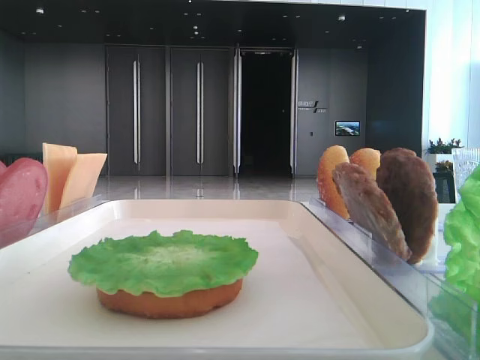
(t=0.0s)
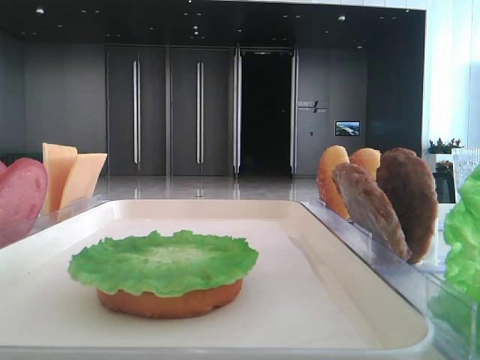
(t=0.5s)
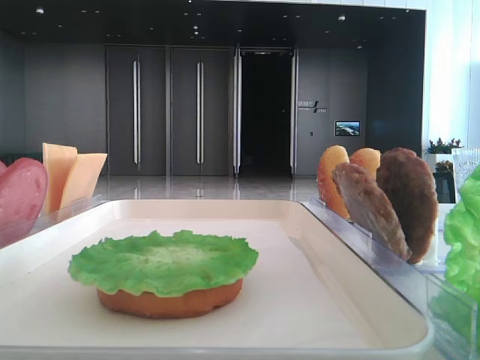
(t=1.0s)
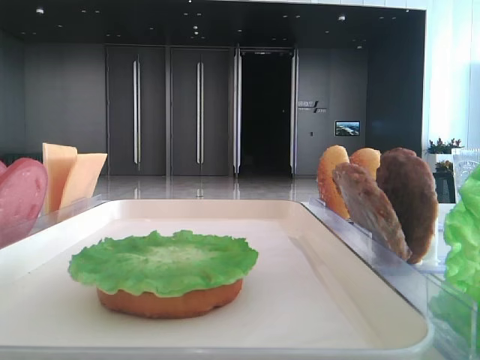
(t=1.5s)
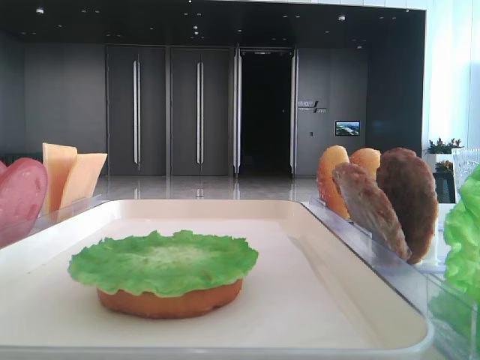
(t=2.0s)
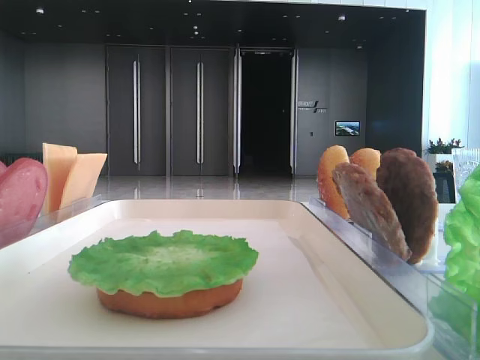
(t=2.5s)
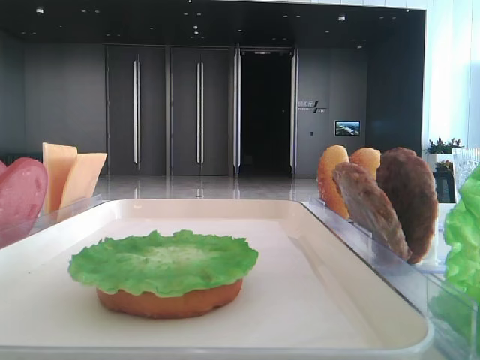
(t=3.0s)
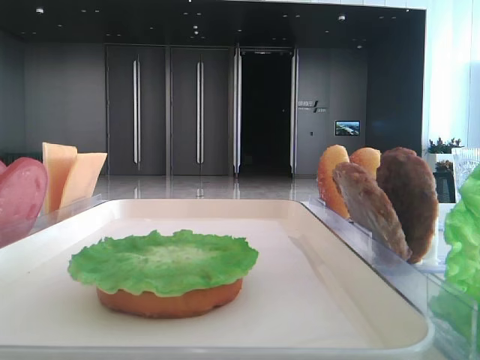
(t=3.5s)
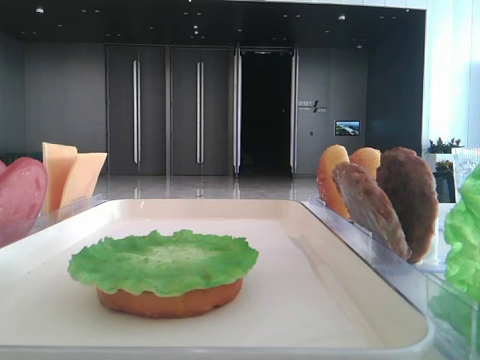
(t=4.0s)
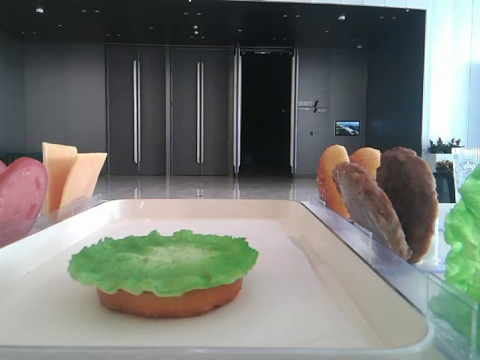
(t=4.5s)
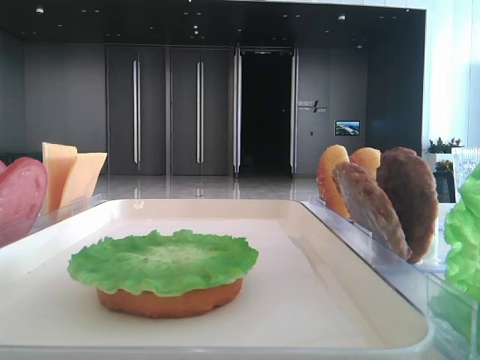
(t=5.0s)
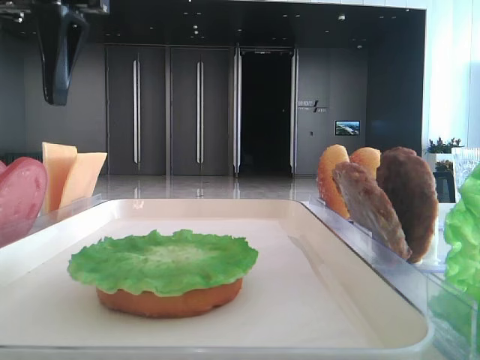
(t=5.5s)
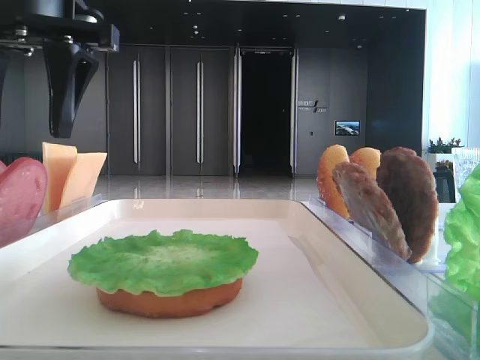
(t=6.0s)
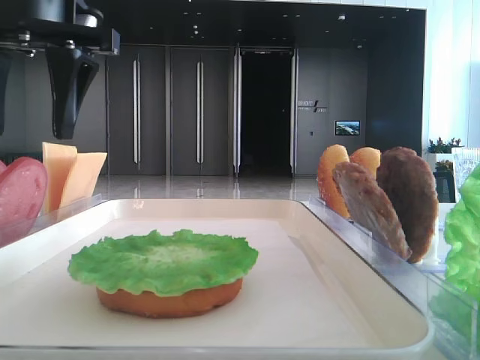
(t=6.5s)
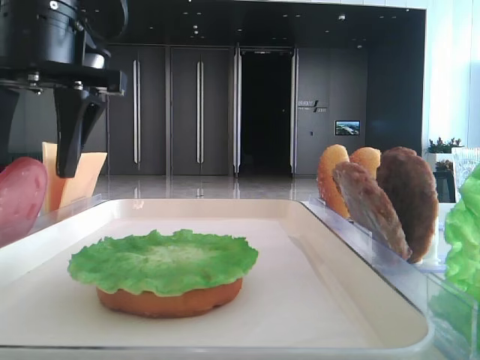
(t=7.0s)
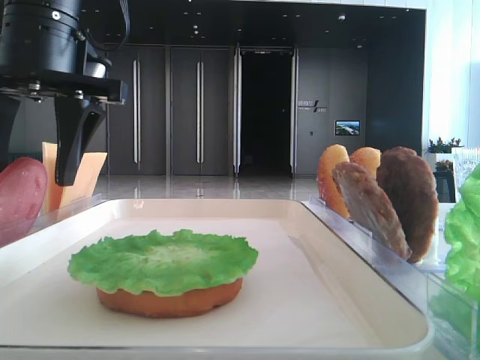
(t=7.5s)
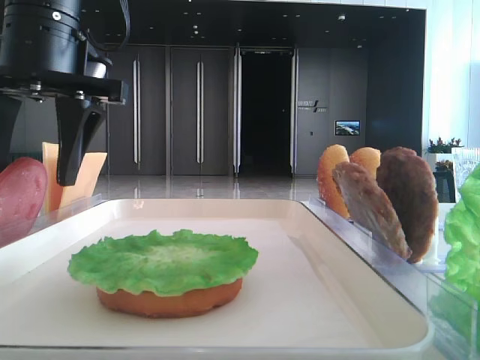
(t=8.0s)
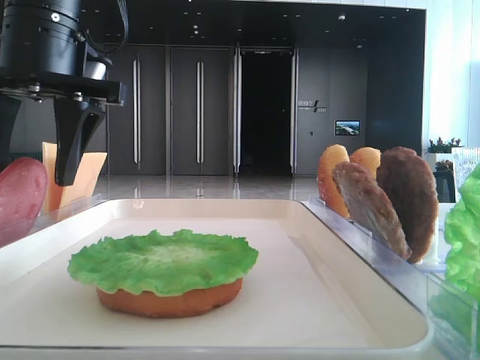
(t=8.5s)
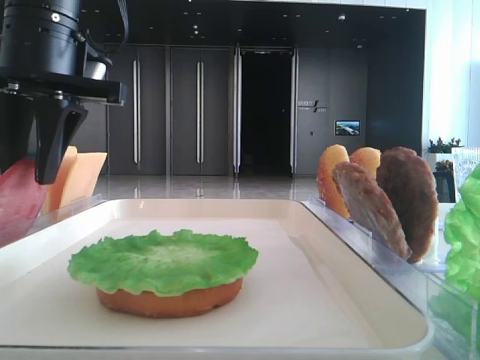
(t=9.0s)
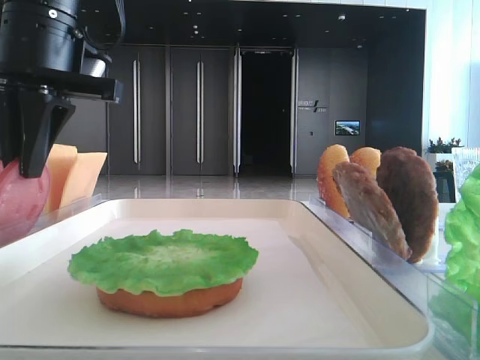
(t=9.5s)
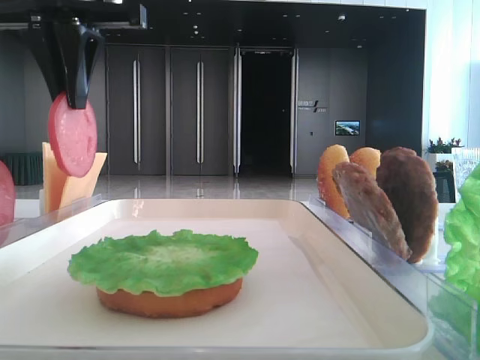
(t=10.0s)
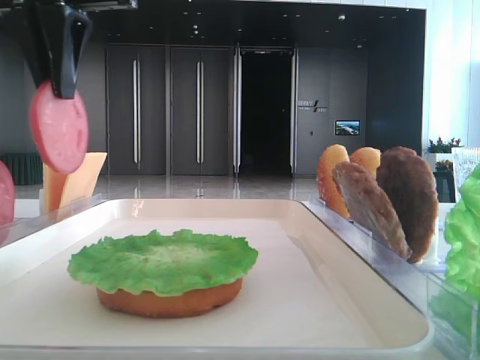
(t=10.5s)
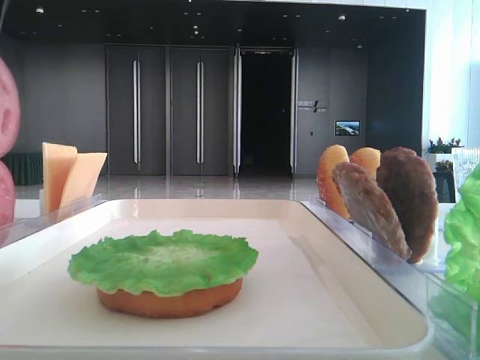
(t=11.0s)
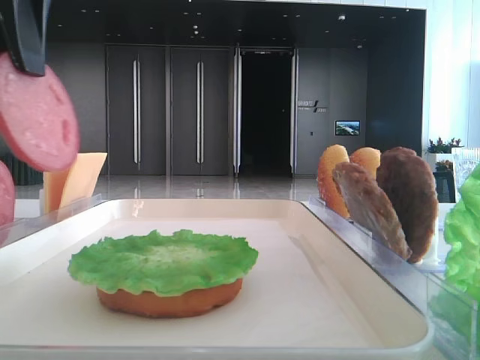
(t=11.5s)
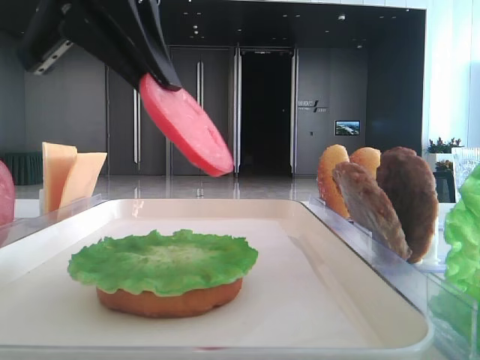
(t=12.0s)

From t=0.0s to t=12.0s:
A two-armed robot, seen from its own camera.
Step, from t=0.0s to t=9.0s: Pick up the tomato slice with the left hand.
From t=4.0s to t=6.0s: The left gripper shifts roughly 20 cm to the right and downward.
From t=6.0s to t=8.0s: There are only small adjustments of the grippers.
From t=8.0s to t=10.0s: The left gripper is displaced upward by some 5 cm, and closes.
From t=10.0s to t=12.0s: The left gripper shifts approximately 5 cm backward.

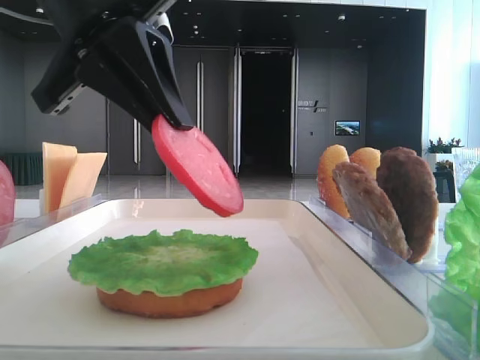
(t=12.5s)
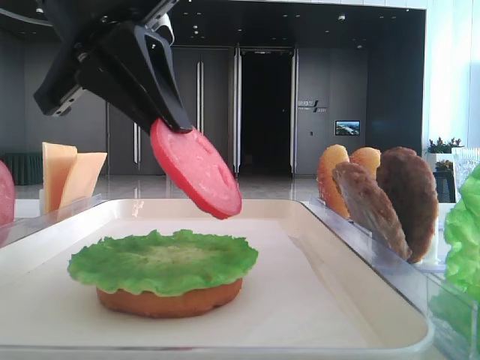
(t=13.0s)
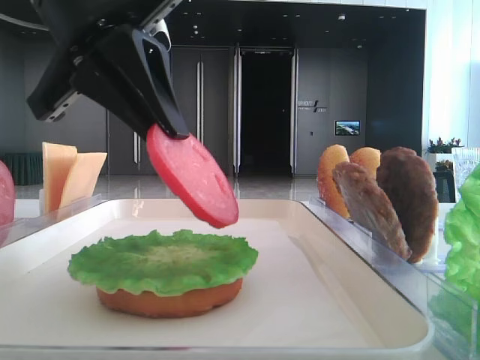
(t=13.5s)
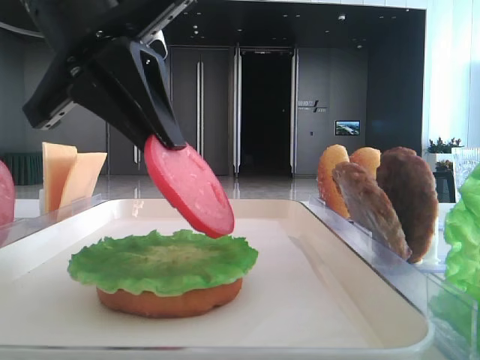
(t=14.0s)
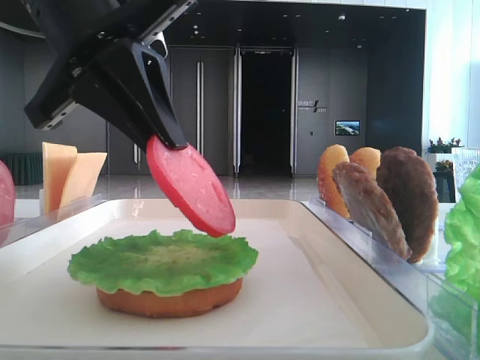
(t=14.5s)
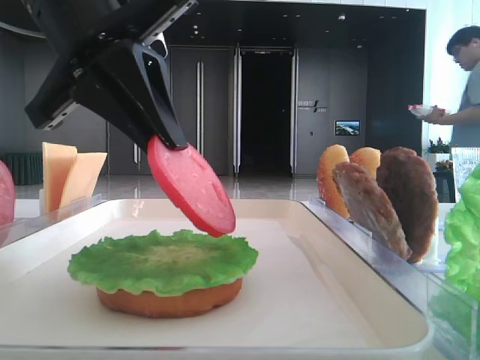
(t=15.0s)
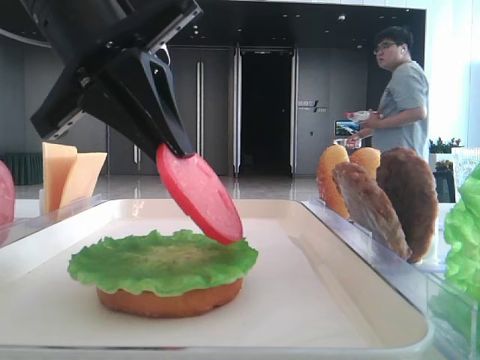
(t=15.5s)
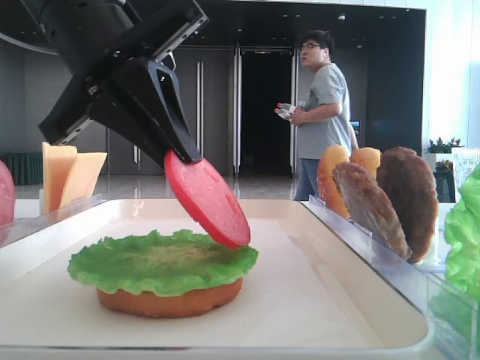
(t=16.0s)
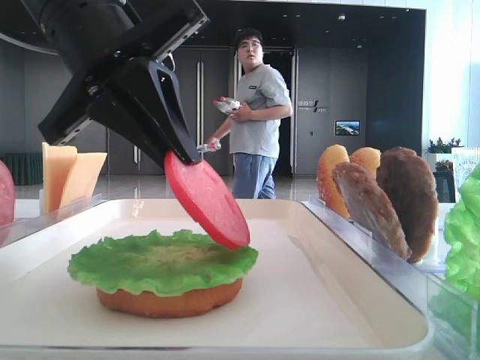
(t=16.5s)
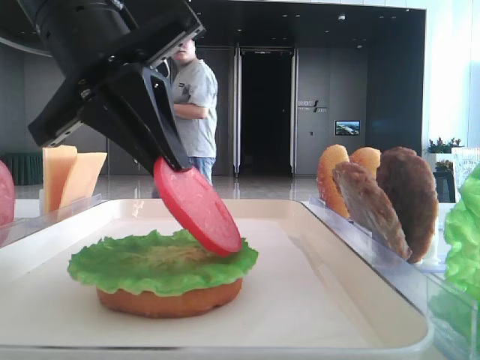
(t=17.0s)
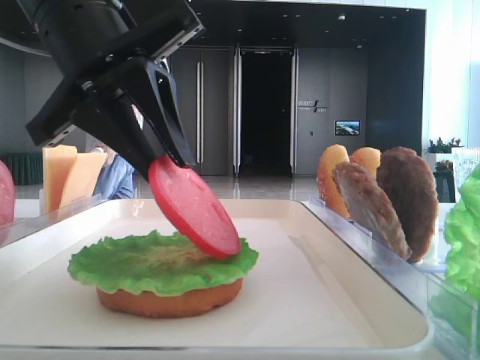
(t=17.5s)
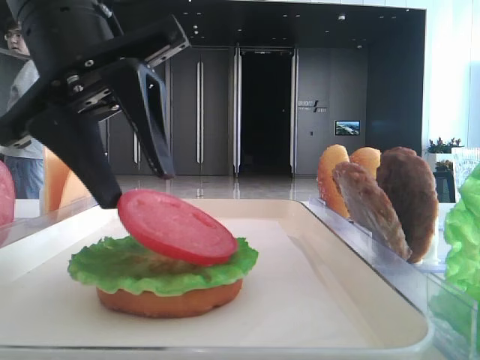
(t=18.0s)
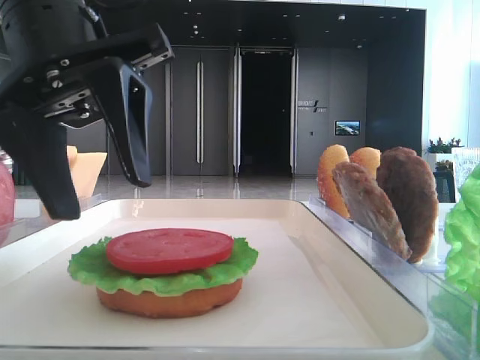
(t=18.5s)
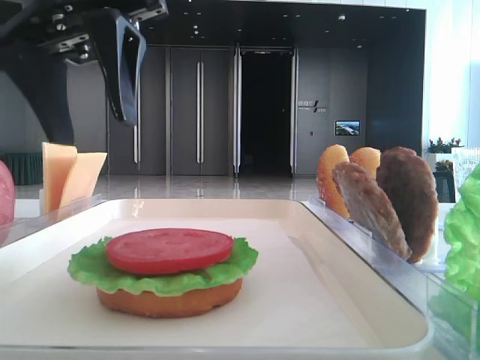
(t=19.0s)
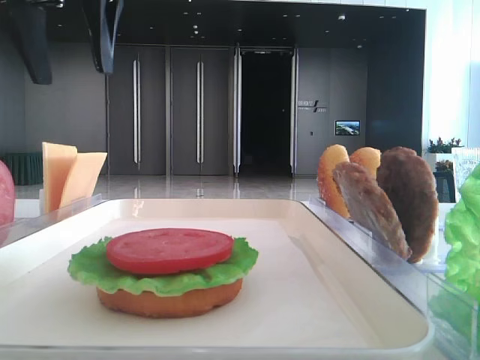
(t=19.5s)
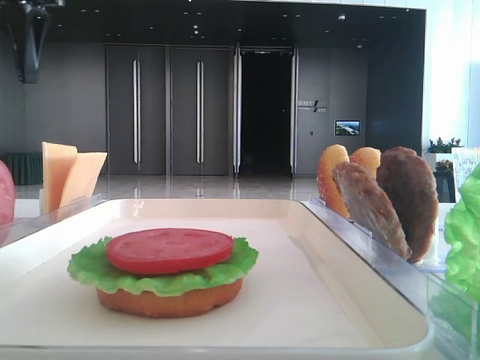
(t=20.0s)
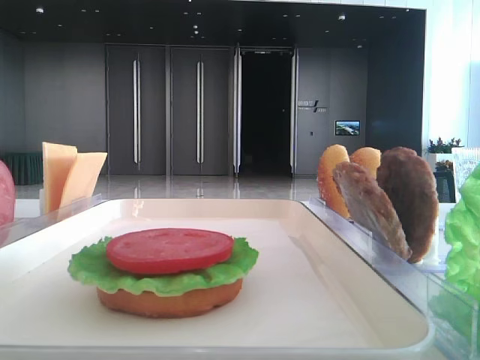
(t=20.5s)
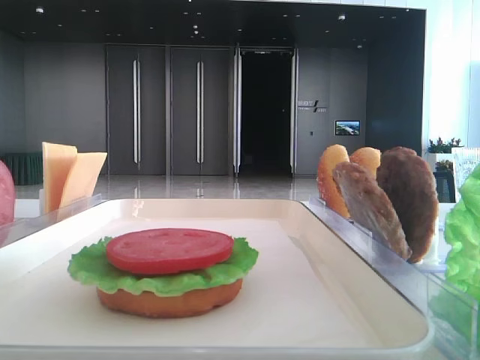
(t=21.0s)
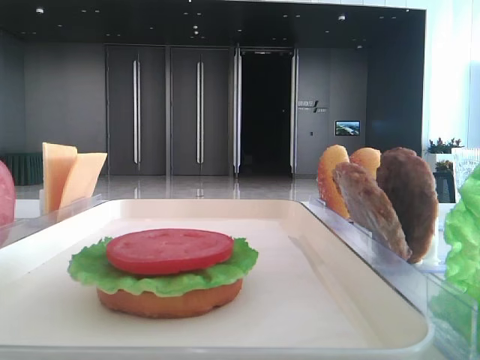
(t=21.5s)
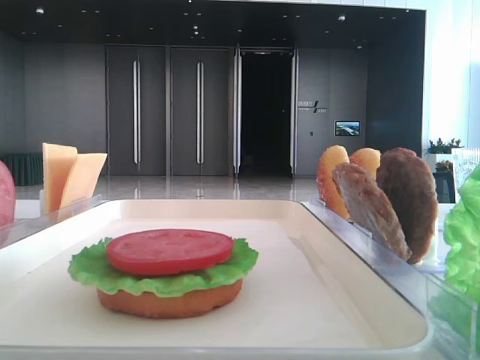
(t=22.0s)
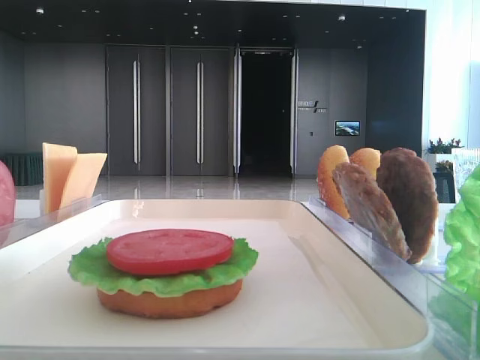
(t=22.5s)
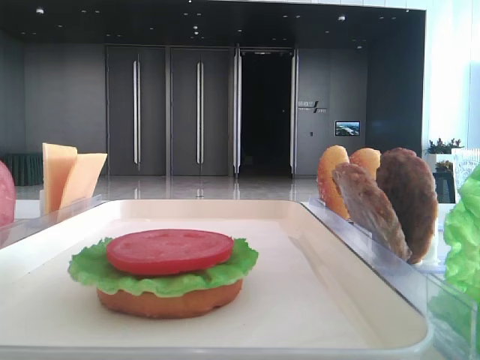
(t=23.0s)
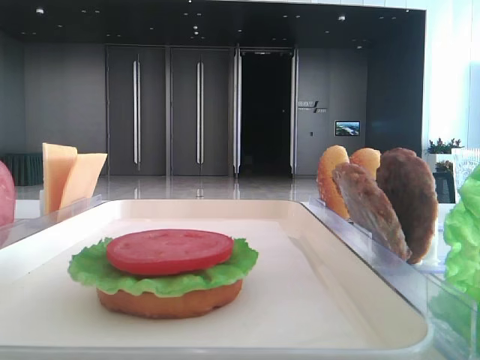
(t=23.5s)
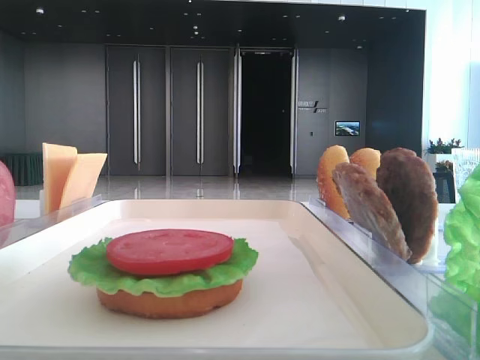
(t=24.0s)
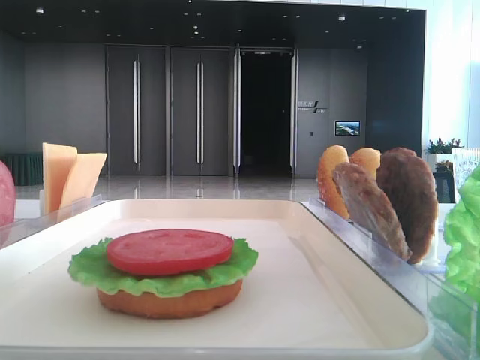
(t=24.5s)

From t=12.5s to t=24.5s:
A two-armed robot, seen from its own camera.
Step, from t=12.5s to t=18.0s: Place the tomato slice on the lettuce leaf with the left hand.
From t=12.5s to t=14.5s: Neither gripper changes place.
From t=14.5s to t=16.5s: The two grippers keep their place.
From t=16.5s to t=18.5s: The left gripper opens its fingers.
From t=18.5s to t=20.5s: The left gripper heads to the left, upward and forward, covering roughly 25 cm.

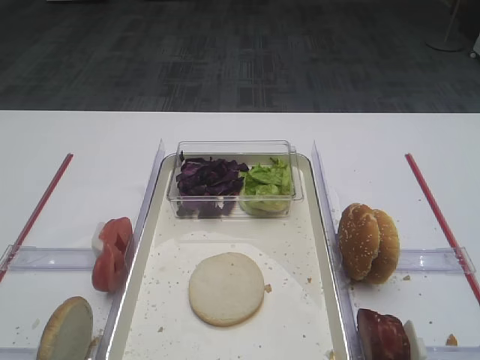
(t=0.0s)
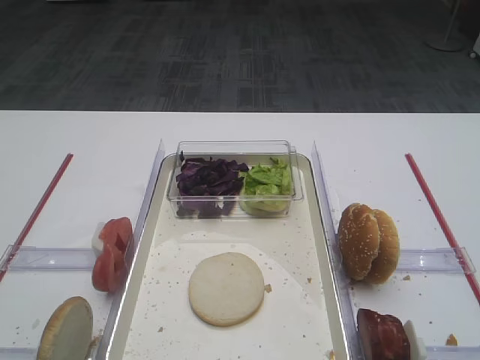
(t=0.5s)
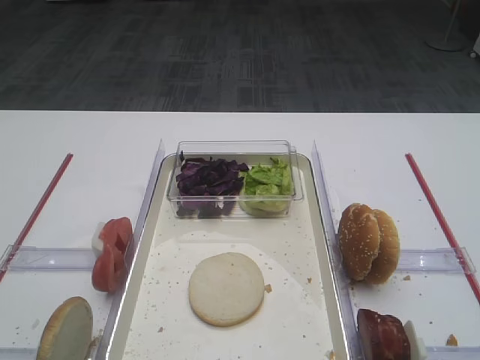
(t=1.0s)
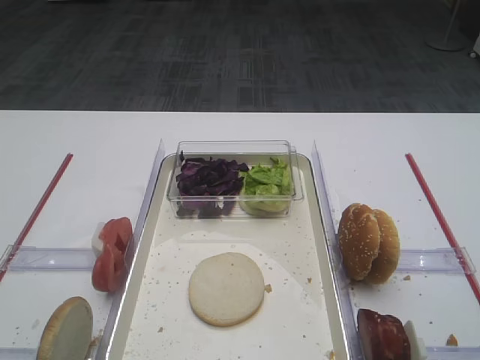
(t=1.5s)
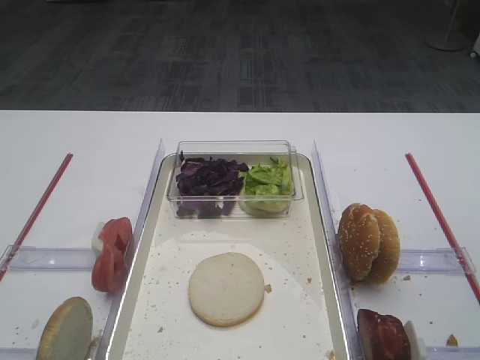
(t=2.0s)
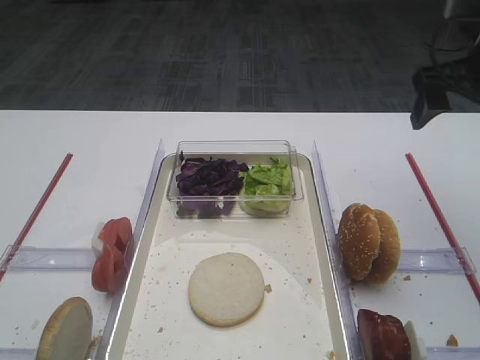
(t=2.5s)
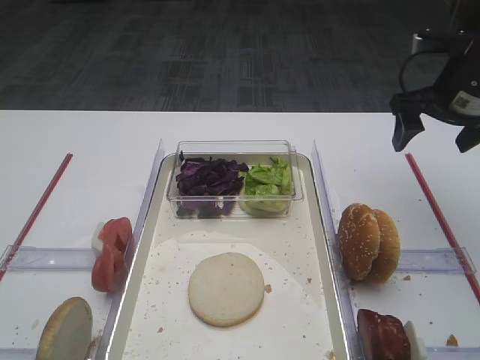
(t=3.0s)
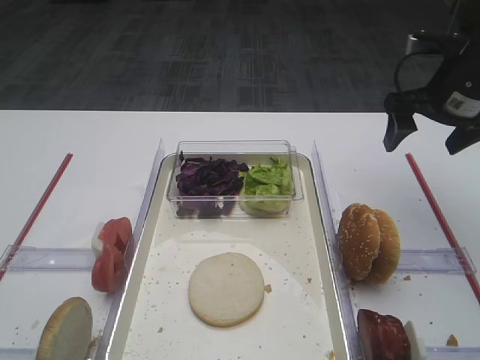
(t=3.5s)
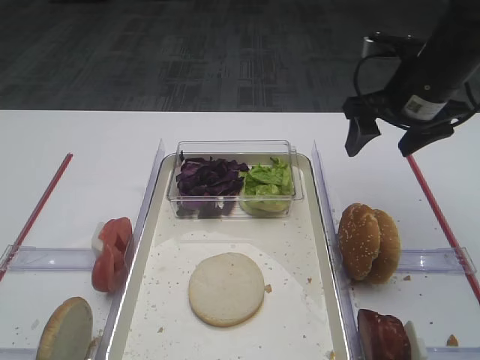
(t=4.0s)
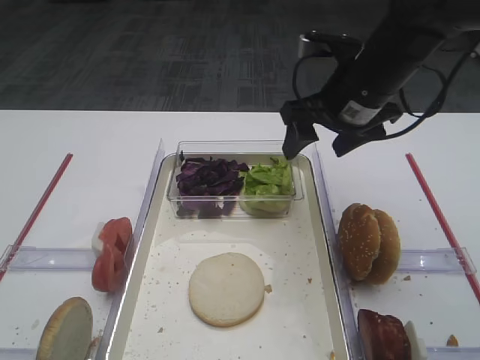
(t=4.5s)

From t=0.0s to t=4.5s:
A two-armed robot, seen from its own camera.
From t=2.0s to t=4.5s: The right gripper is displaced forward, to the left and downward by approximately 25 cm.
